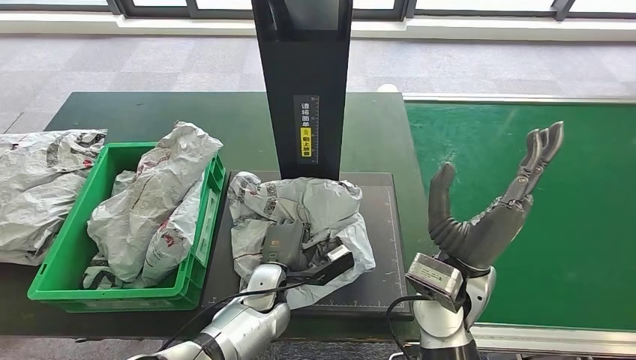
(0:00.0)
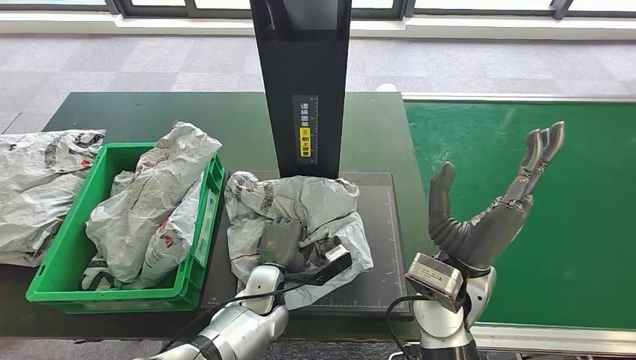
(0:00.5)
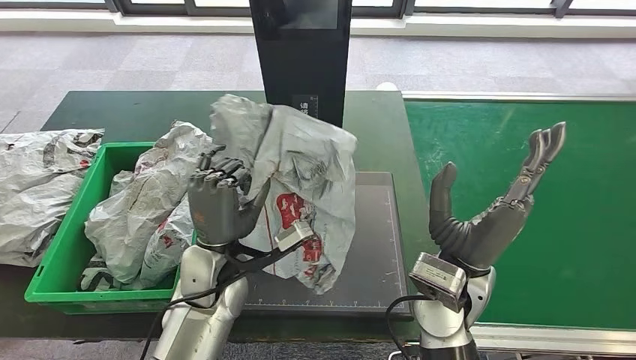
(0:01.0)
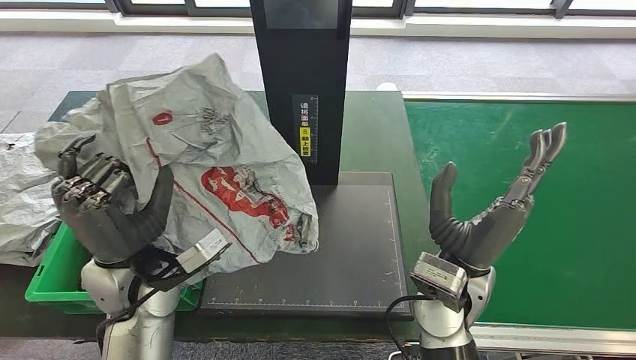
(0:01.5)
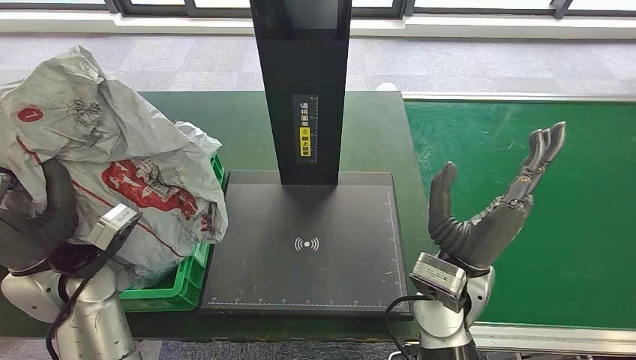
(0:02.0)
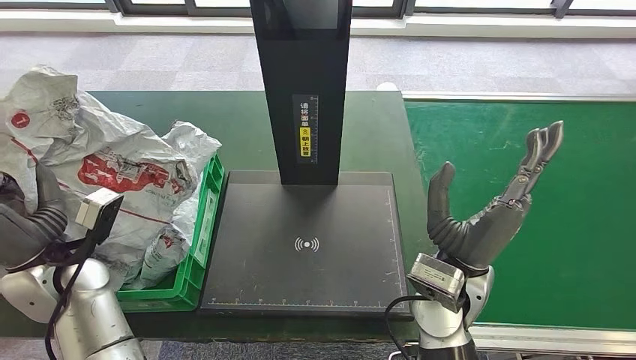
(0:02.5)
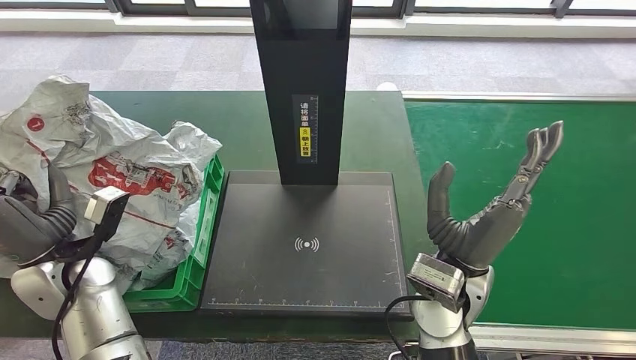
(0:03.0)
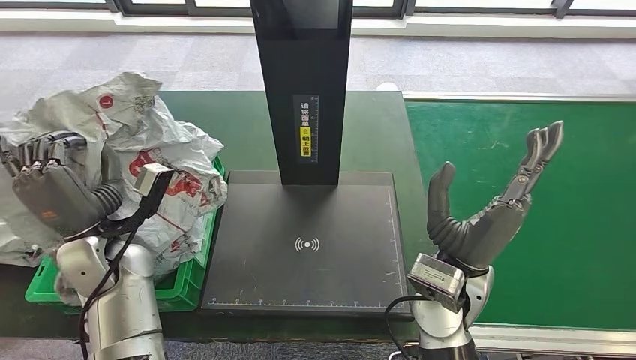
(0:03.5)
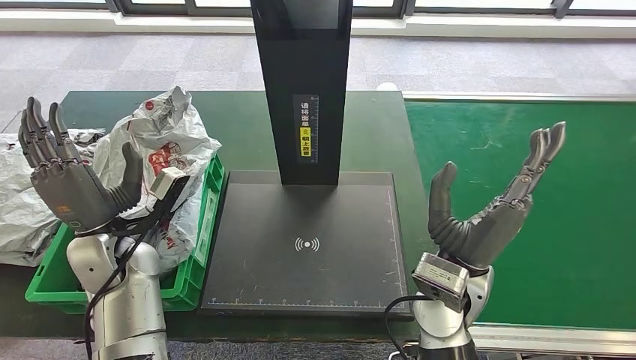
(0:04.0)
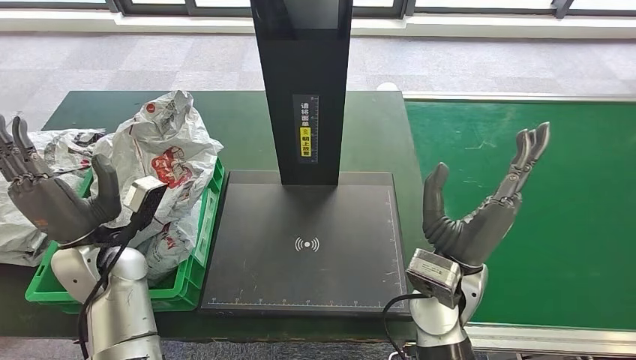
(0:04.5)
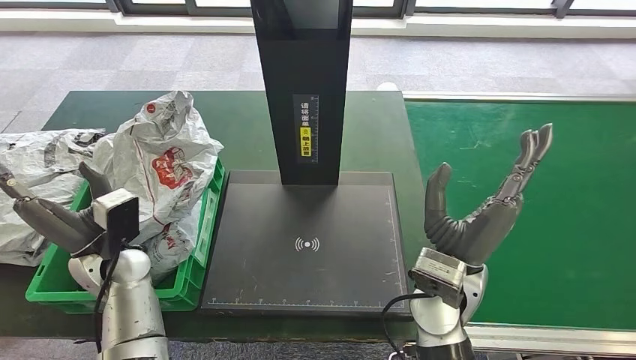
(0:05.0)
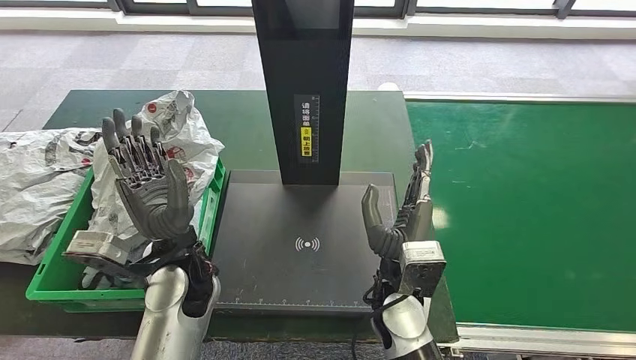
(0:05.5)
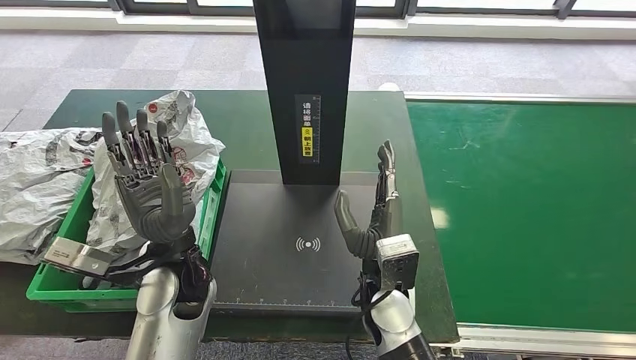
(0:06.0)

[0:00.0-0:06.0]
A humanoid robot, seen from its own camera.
Step, 0:00.0 to 0:02.0: Pick up the parcel from the inbound machine.
Step, 0:02.5 to 0:06.0: Place the parcel into the delivery box.
0:02.0 to 0:04.0: The left hand moves approximately 5 cm.

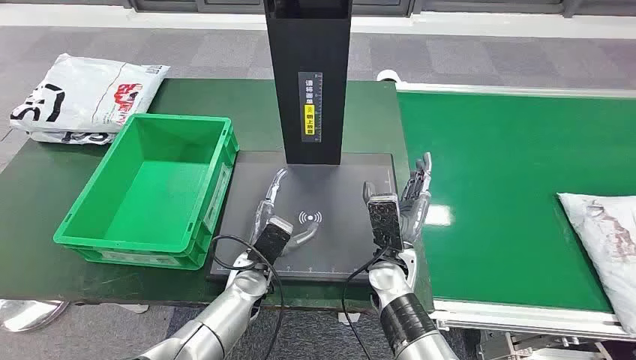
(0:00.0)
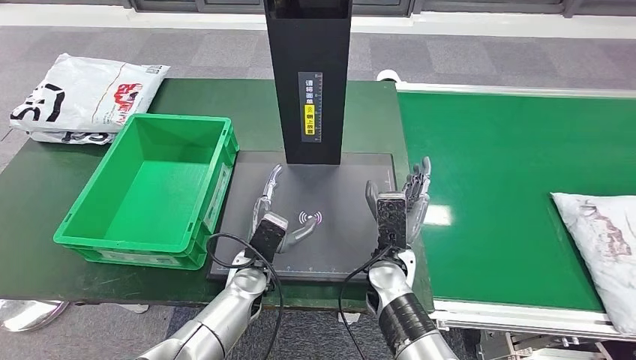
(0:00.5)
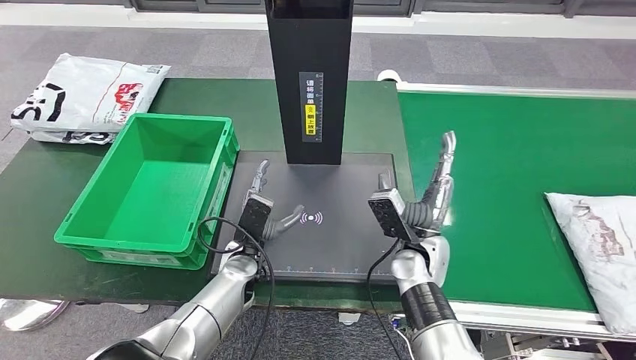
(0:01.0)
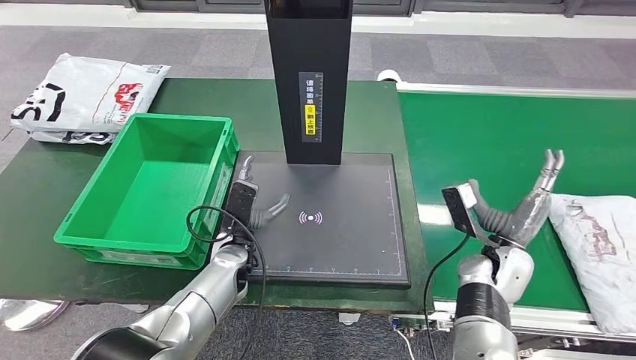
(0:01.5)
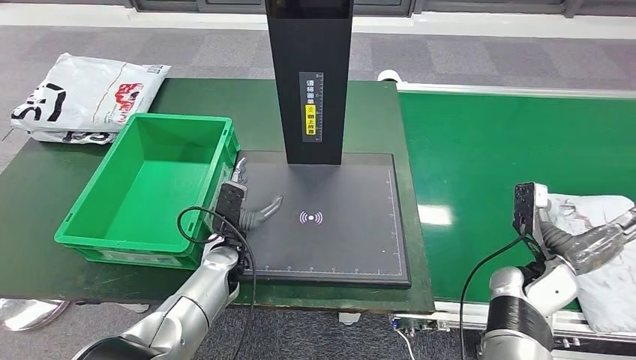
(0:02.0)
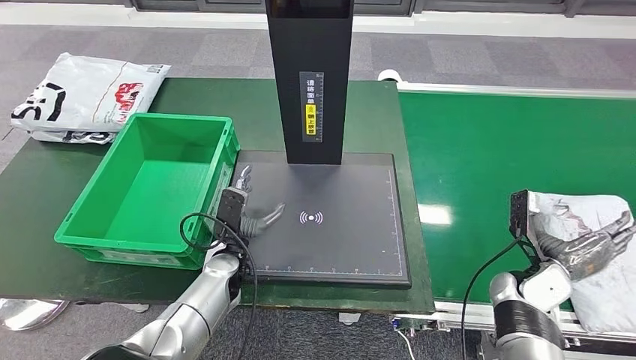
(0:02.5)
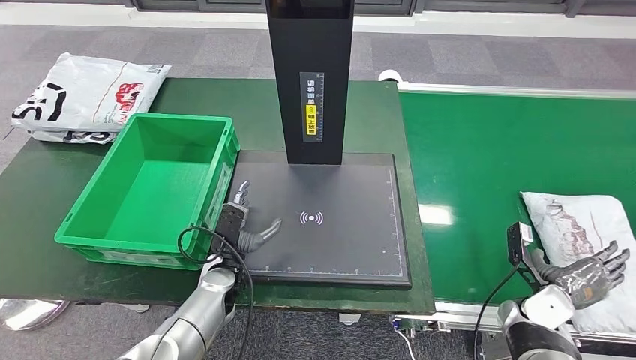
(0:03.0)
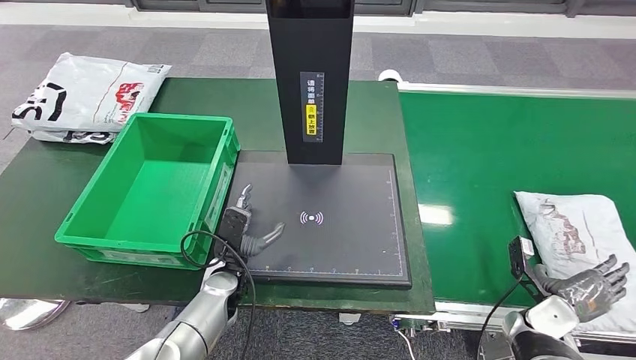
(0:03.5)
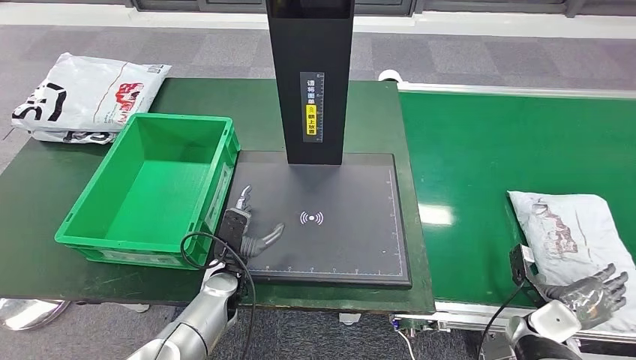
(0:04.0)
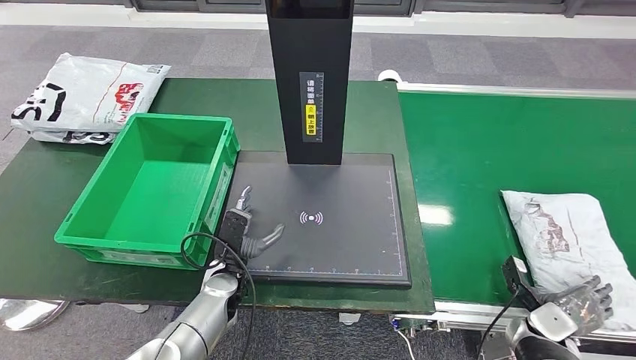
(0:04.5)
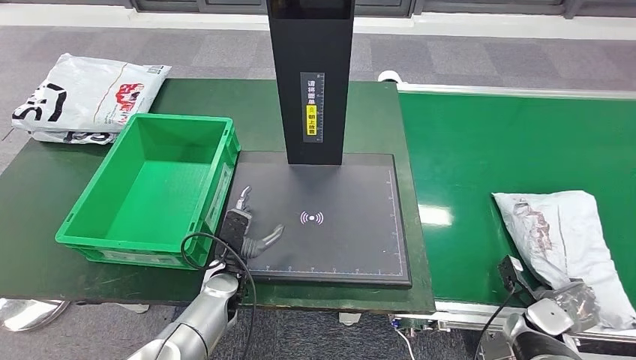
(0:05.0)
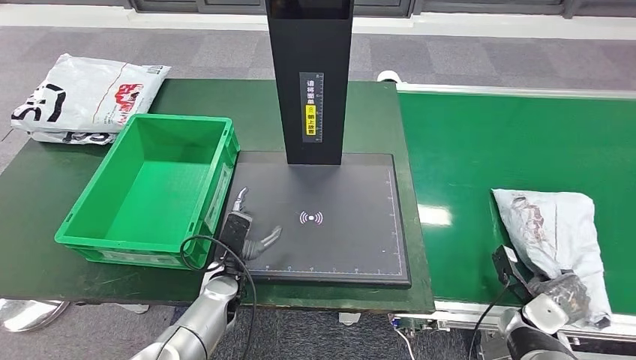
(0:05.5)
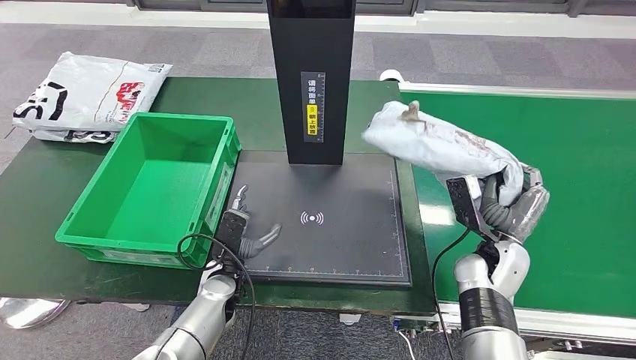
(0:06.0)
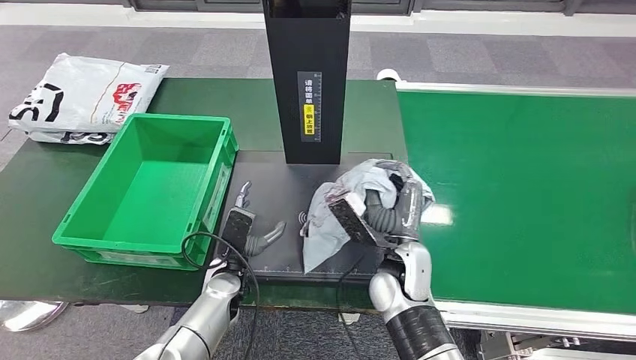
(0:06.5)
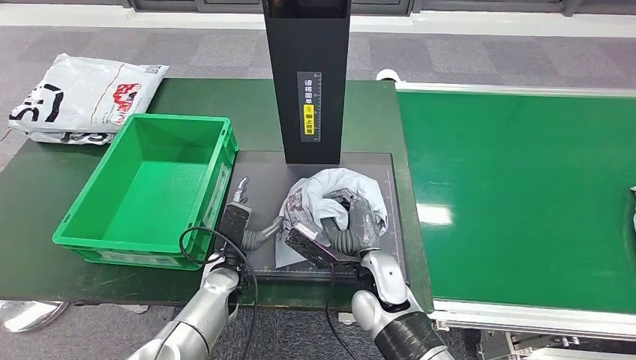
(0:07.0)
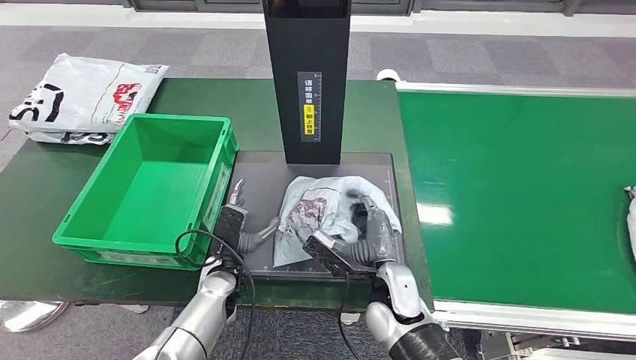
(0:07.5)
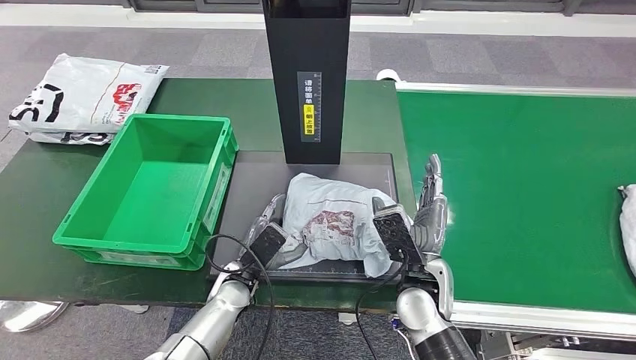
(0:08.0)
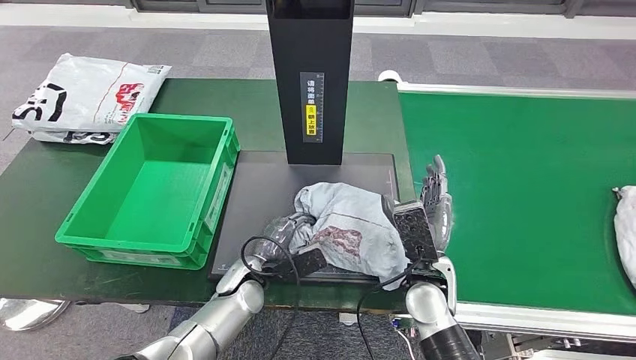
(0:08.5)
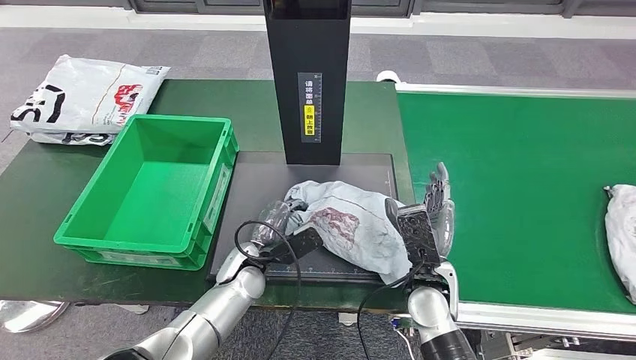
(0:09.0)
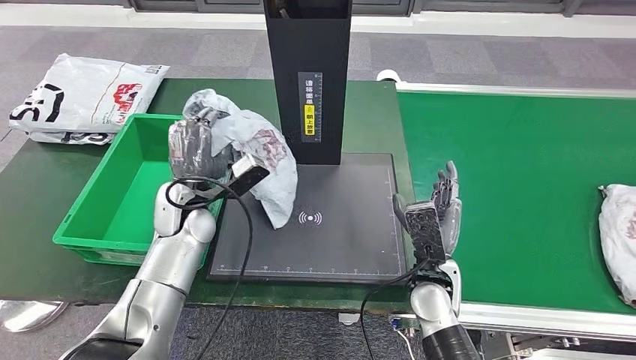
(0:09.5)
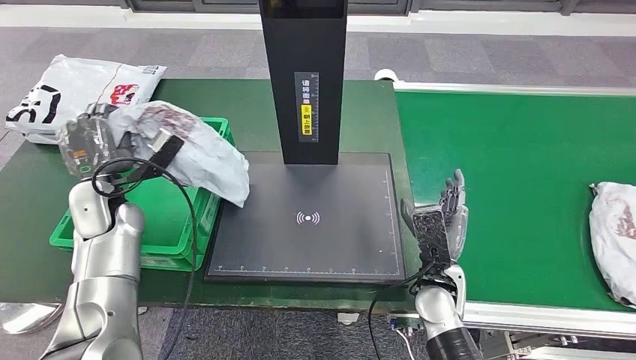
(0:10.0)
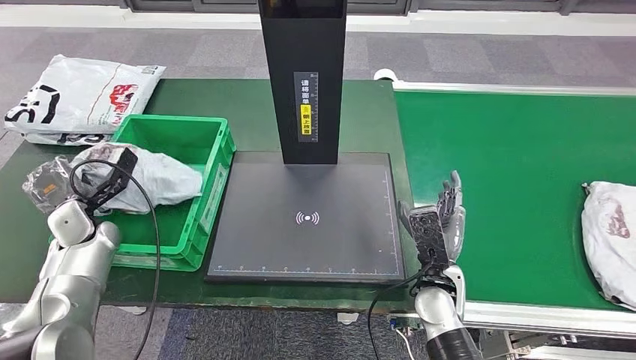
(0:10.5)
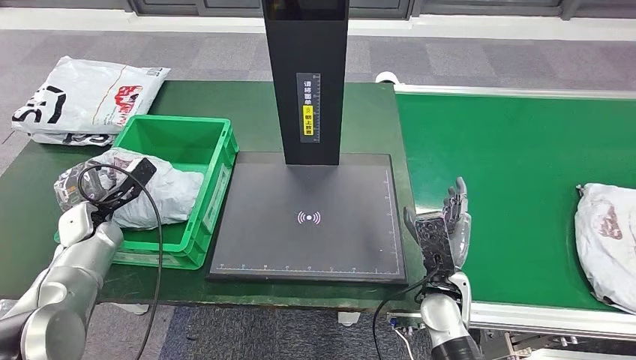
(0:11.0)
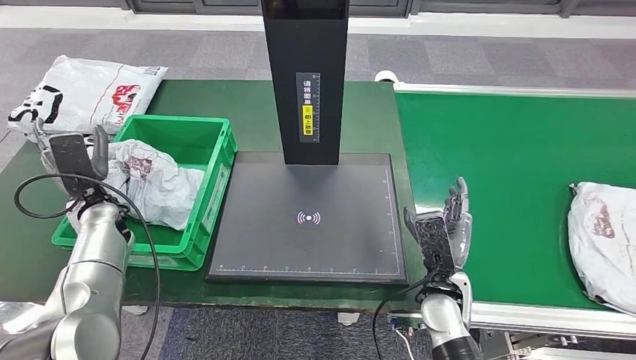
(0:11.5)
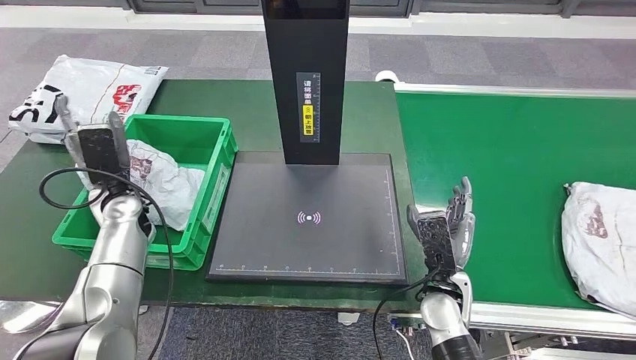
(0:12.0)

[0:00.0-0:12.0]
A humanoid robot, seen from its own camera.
Step, 0:00.0 to 0:05.5: Take the parcel off the conveyor belt.
Step, 0:06.5 to 0:08.0: Place the parcel onto the inbound machine.
Step, 0:08.5 to 0:10.0: Pick up the parcel from the inbound machine.
0:02.0 to 0:04.0: The right hand moves downward, to the right and backward, about 15 cm. The left hand moves approximately 5 cm.

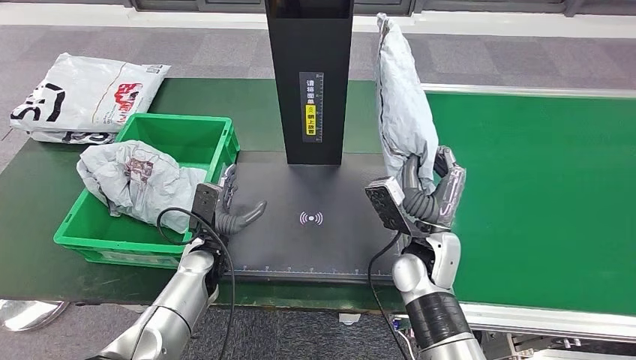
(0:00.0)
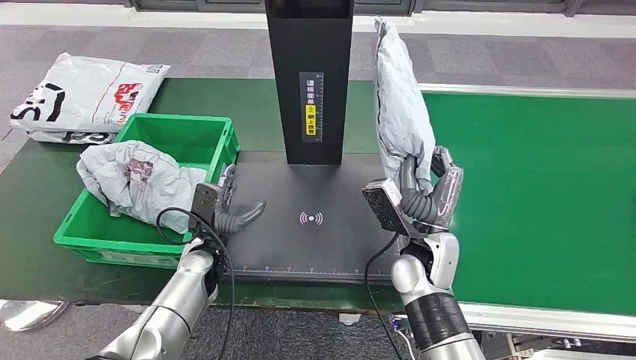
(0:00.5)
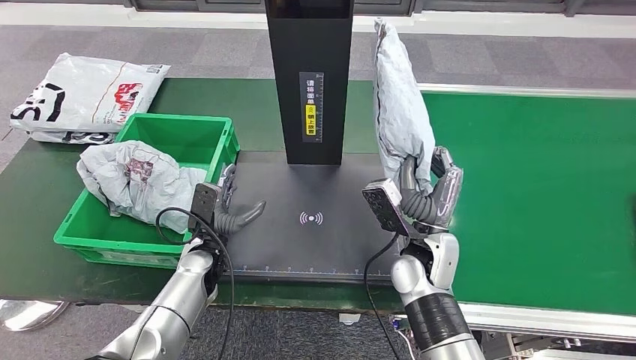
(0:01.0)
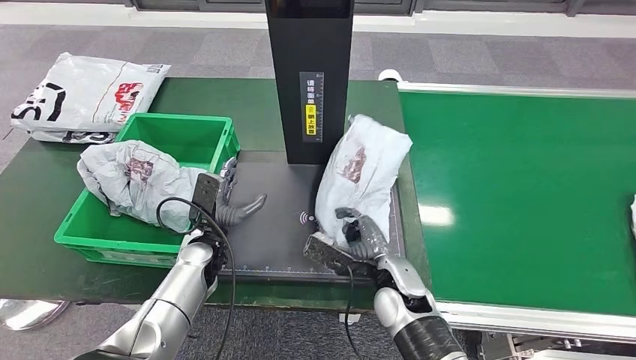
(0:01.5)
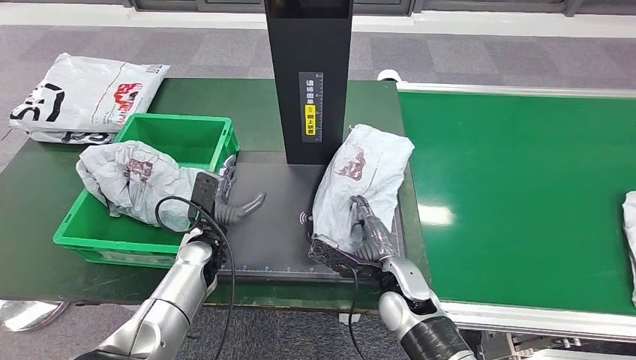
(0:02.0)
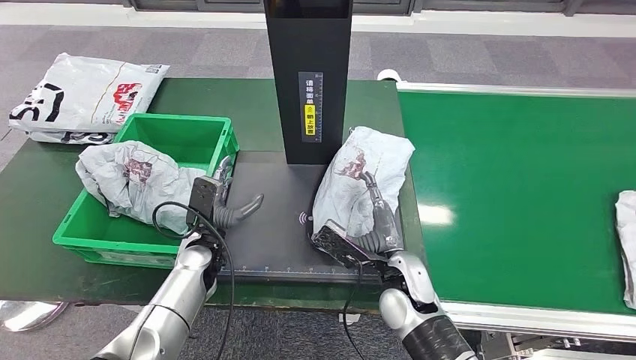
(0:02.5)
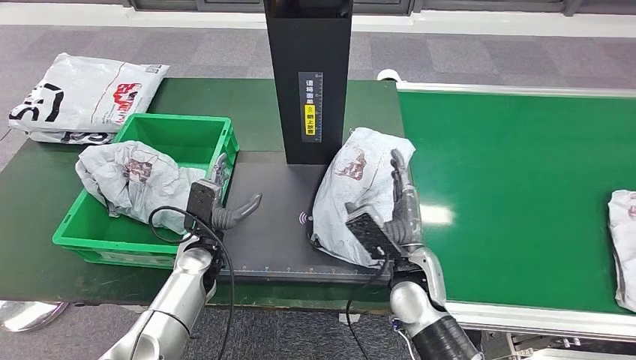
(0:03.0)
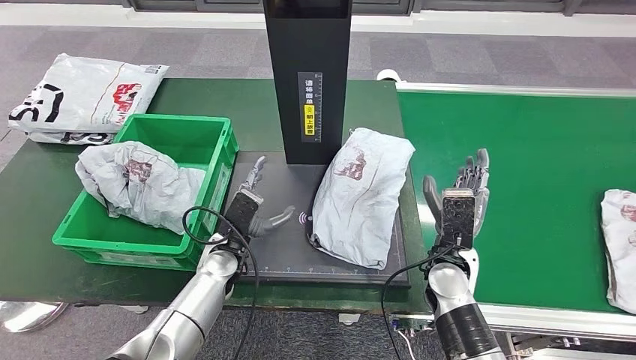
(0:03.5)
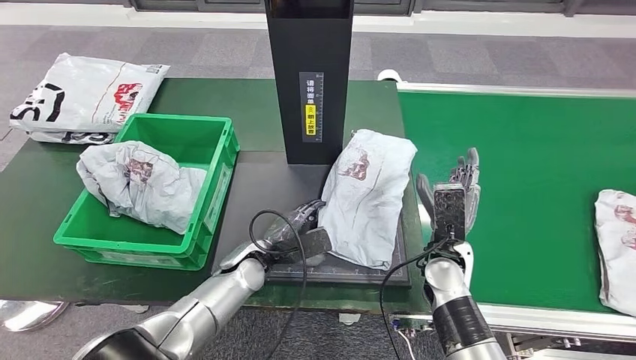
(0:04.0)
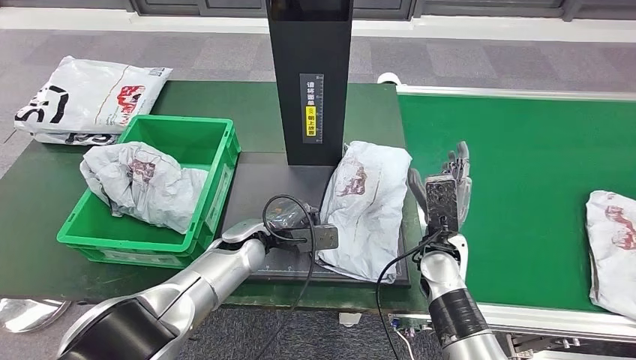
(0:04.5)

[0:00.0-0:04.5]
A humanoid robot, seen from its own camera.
Step, 0:00.5 to 0:03.5: Place the parcel onto the inbound machine.
0:00.0 to 0:02.0: The right hand shifts some 5 cm downward.
